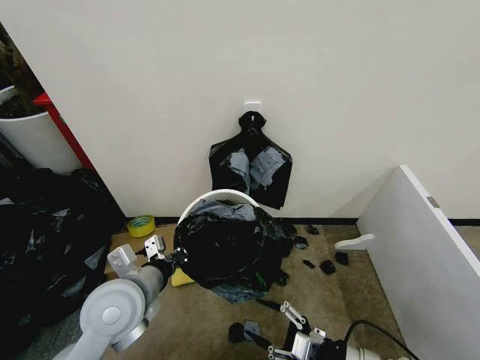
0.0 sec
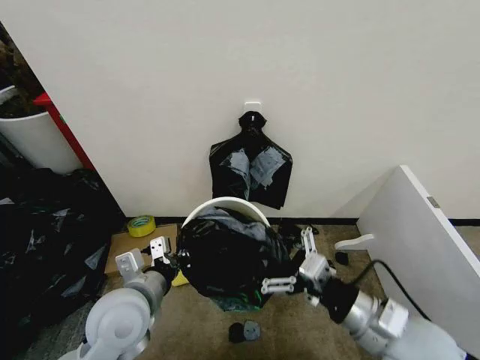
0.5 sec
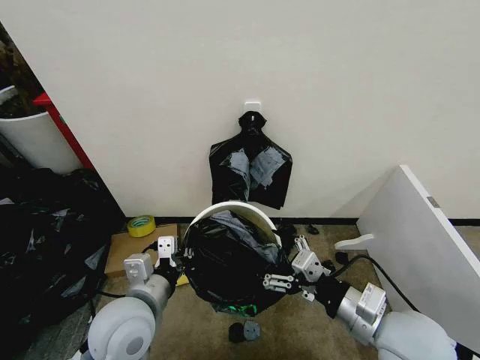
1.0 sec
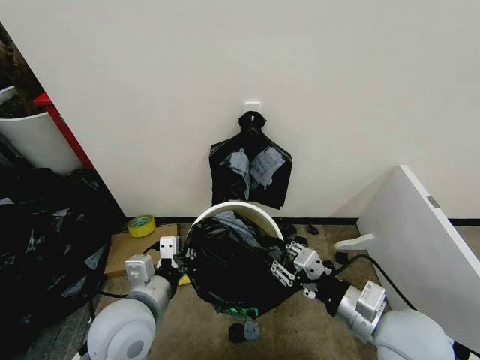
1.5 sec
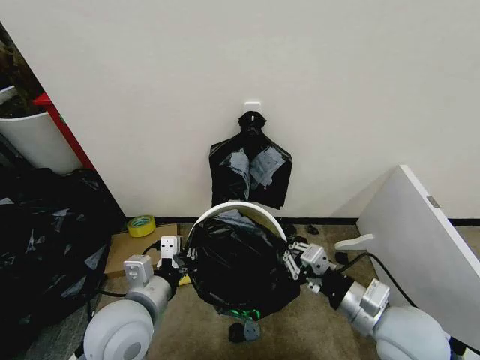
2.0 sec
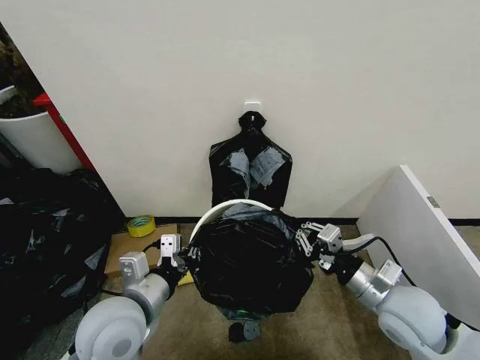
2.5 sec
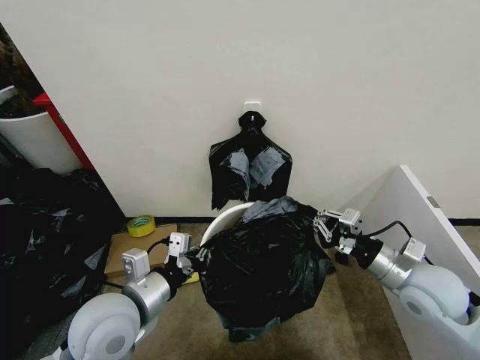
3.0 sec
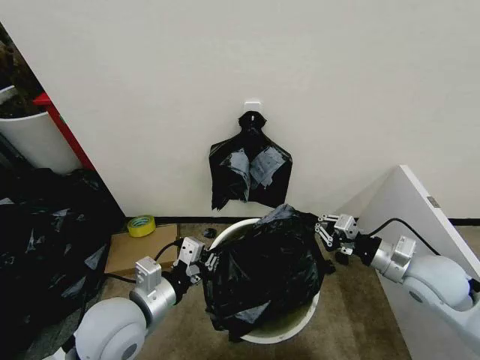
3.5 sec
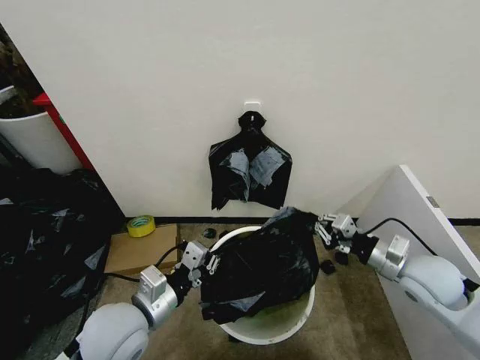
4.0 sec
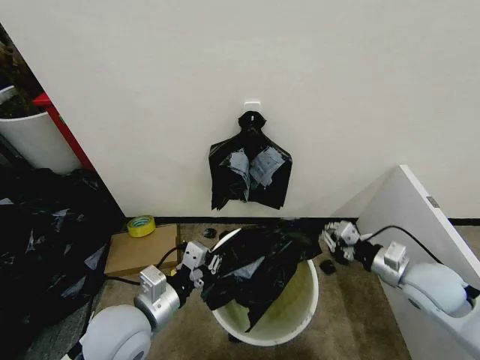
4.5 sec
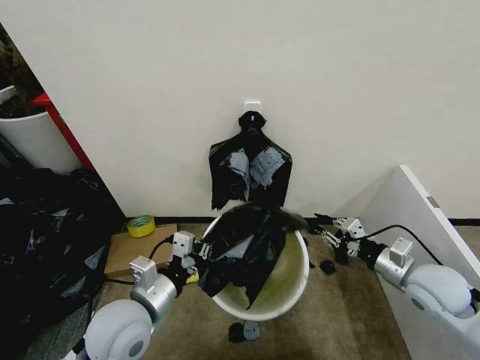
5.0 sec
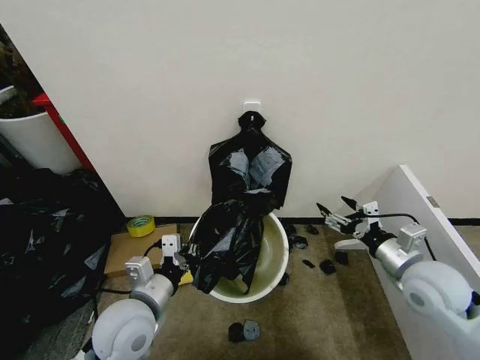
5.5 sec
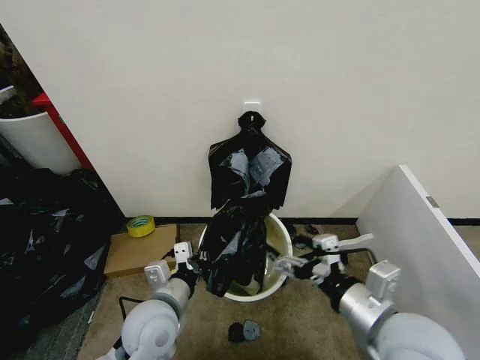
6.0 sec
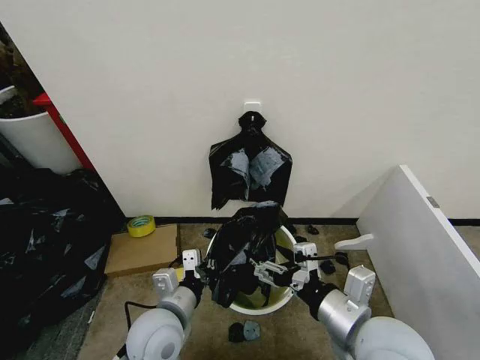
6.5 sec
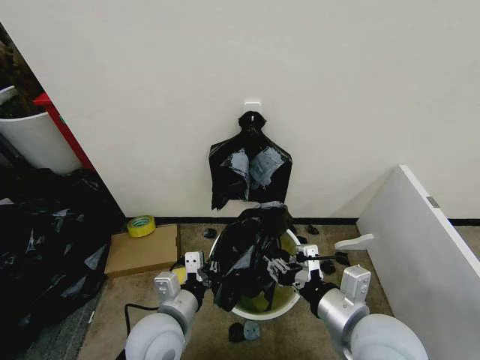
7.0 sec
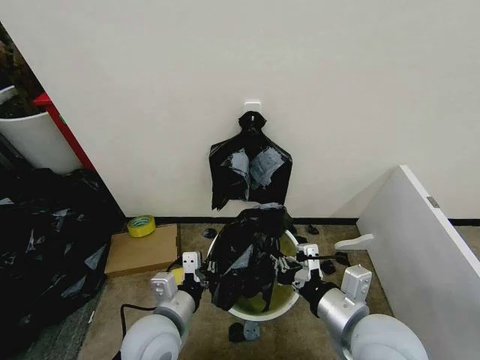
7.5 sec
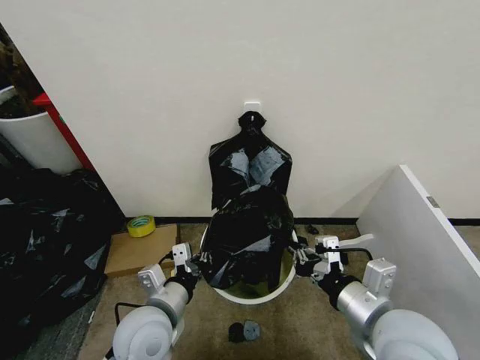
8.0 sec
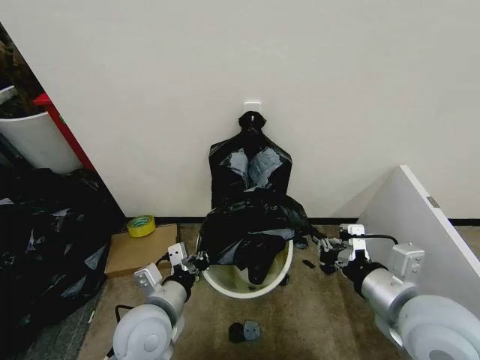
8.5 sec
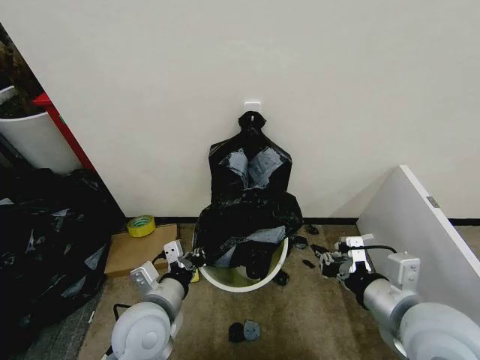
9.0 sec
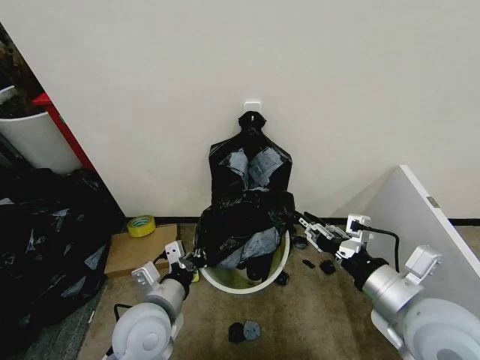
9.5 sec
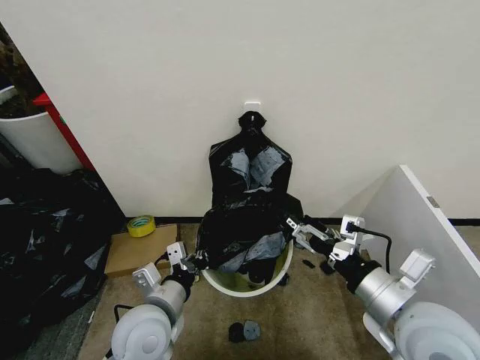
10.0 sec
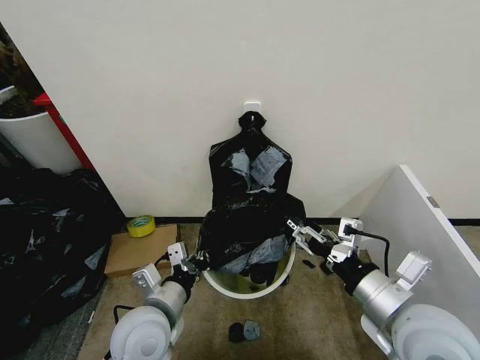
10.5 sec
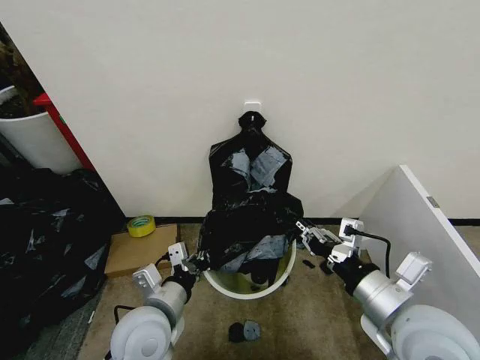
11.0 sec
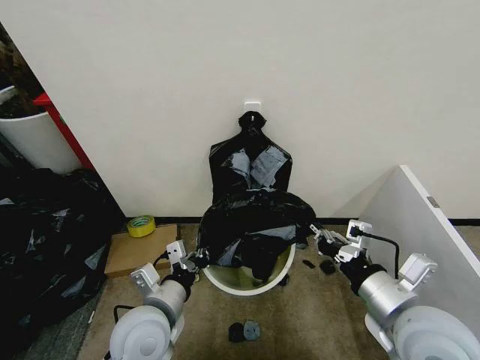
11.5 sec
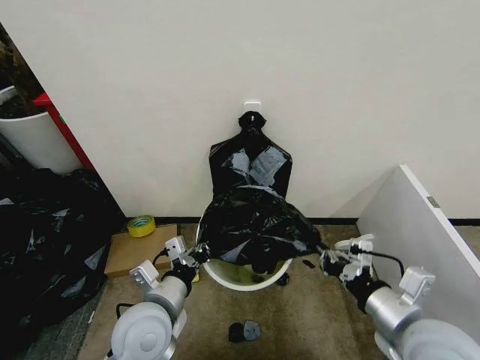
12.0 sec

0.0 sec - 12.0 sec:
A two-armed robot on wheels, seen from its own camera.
Task of the whole recording: Place the garbage bag over the trash bin.
0.0 sec - 2.0 sec: The right gripper goes approximately 10 cm upward and forward, and closes up.
2.0 sec - 4.0 sec: The right gripper goes some 15 cm to the right and forward.
4.0 sec - 6.0 sec: The left gripper ends up roughly 5 cm from where it was. The right gripper shifts some 20 cm to the left, backward and upward, and opens.
6.0 sec - 8.0 sec: The right gripper closes its fingers.
8.0 sec - 10.0 sec: The right gripper opens its fingers.
10.0 sec - 12.0 sec: The right gripper closes.

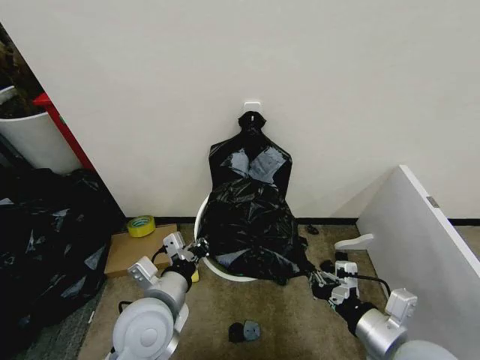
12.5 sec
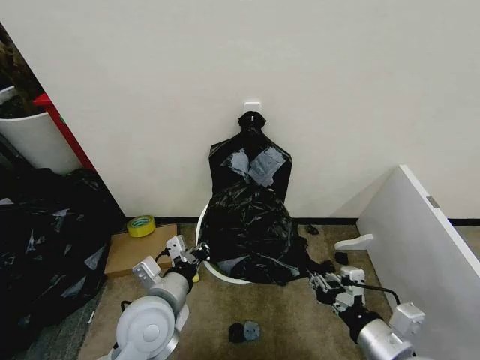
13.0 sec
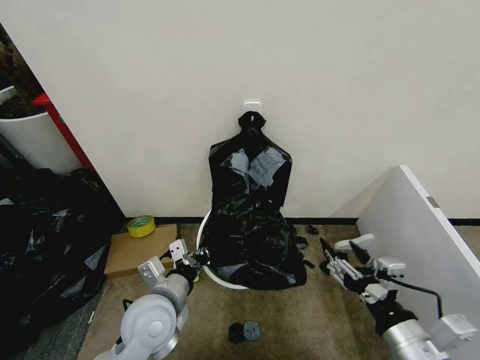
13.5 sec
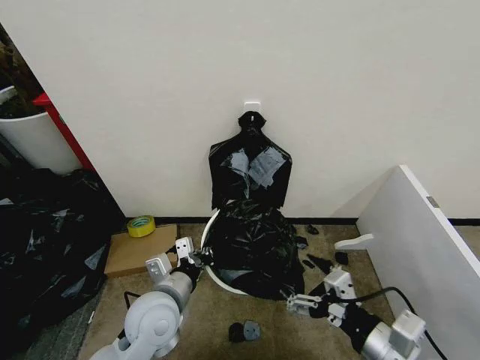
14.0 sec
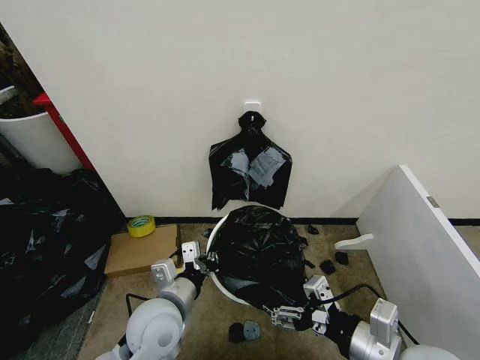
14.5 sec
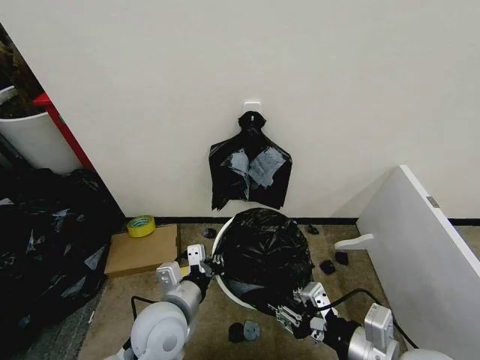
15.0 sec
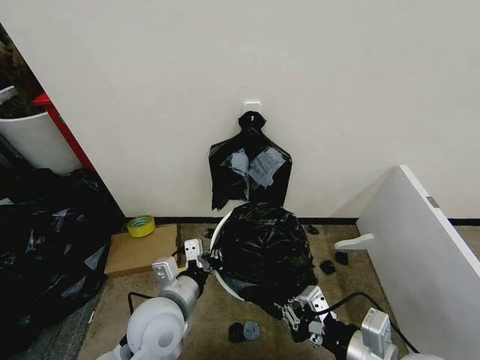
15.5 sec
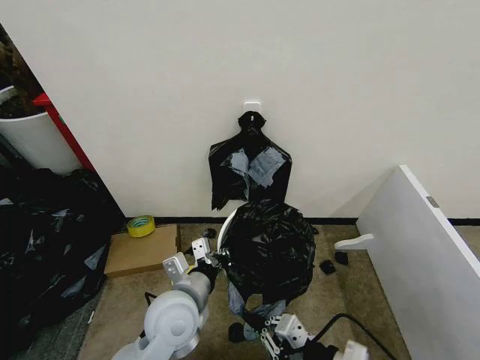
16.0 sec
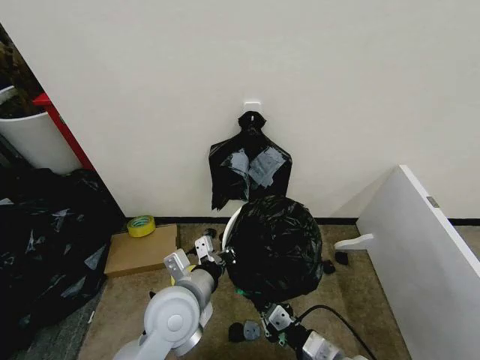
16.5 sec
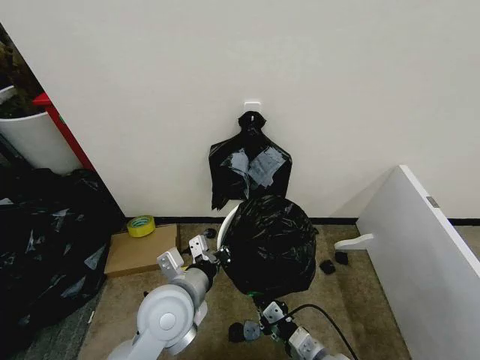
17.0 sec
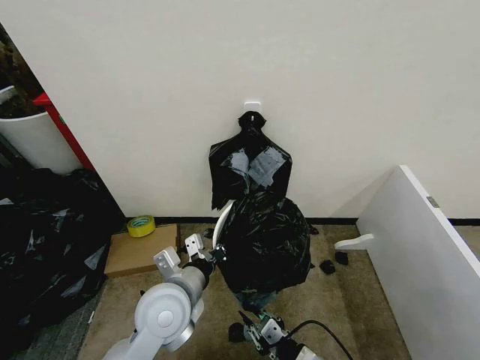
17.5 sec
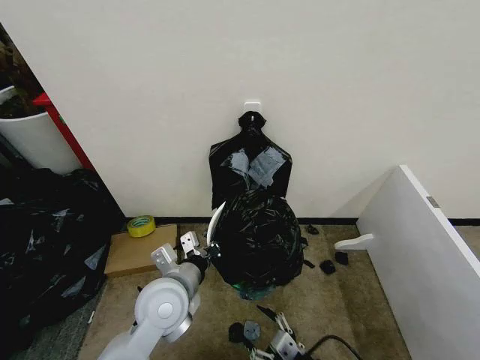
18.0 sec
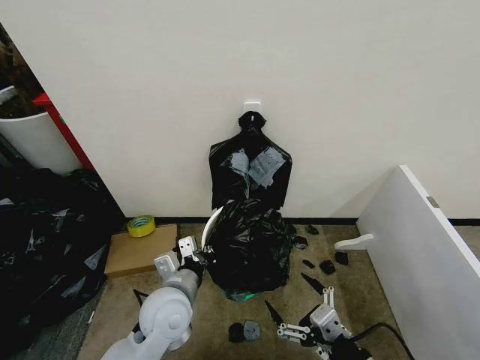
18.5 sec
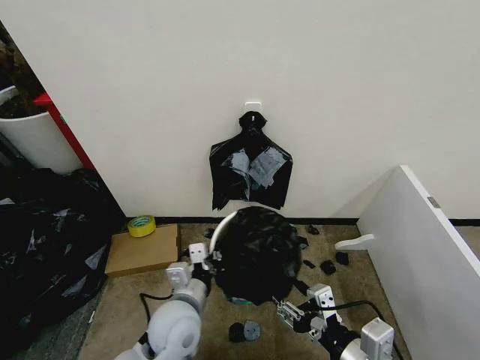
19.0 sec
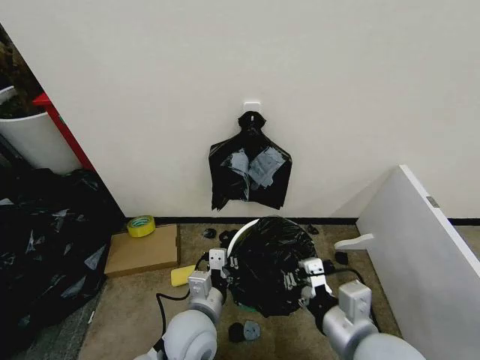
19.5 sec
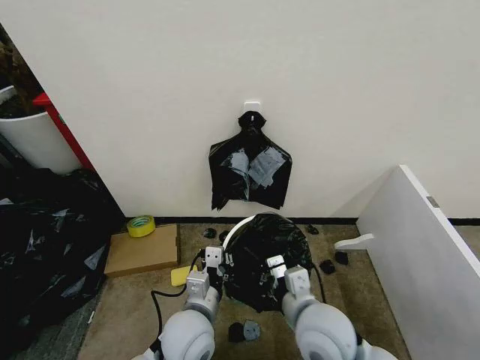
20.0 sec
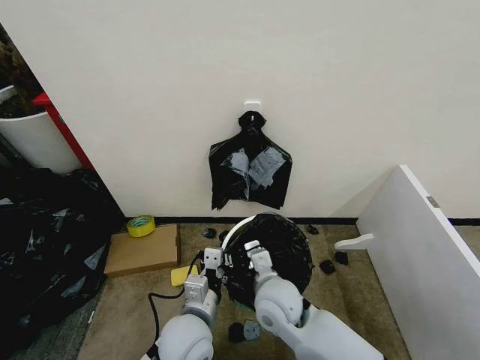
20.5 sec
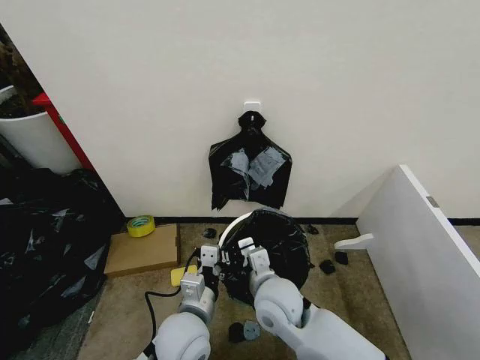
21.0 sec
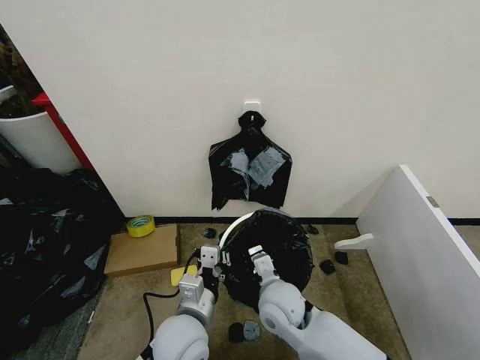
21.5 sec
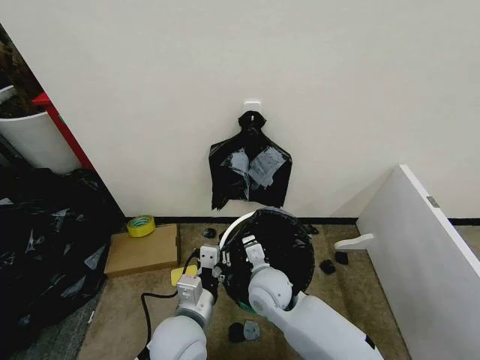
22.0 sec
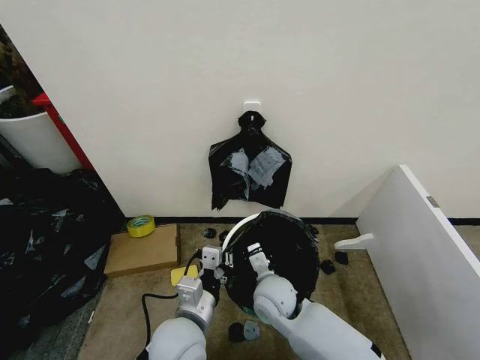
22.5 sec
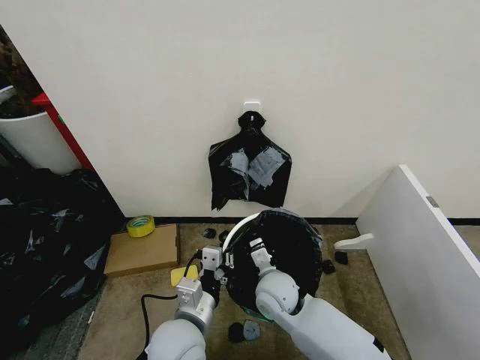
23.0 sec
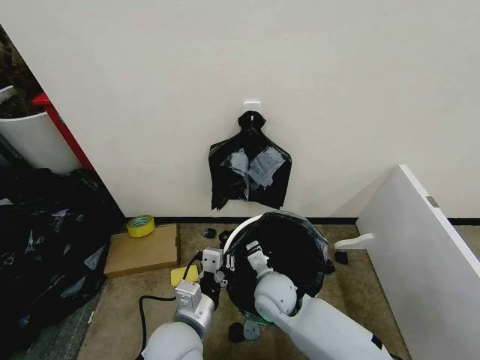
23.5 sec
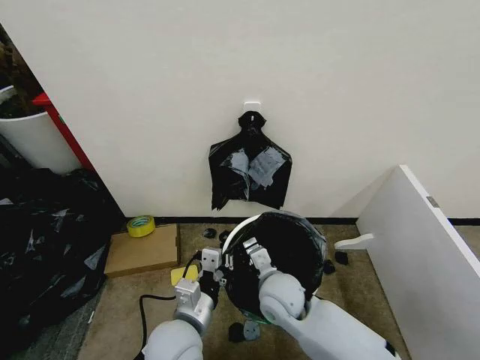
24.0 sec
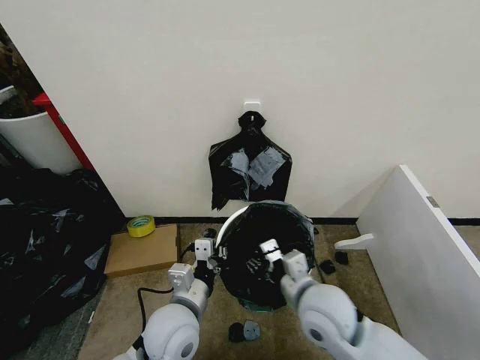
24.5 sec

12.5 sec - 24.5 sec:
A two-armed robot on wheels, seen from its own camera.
Task of the whole recording: Place the garbage bag over the trash bin.
12.5 sec - 14.5 sec: The right gripper opens up.
14.5 sec - 16.5 sec: The right gripper goes some 15 cm downward, and closes up.
16.5 sec - 18.5 sec: The right gripper travels upward and backward by about 10 cm, and opens its fingers.
18.5 sec - 20.5 sec: The right gripper travels forward and to the left by about 25 cm, and closes, while the left gripper moves roughly 5 cm.
20.5 sec - 22.5 sec: The right gripper ends up approximately 5 cm from where it was.
22.5 sec - 24.5 sec: The right gripper goes some 15 cm upward, to the right and backward, and opens up.

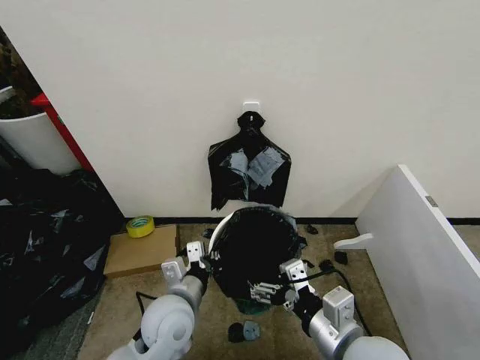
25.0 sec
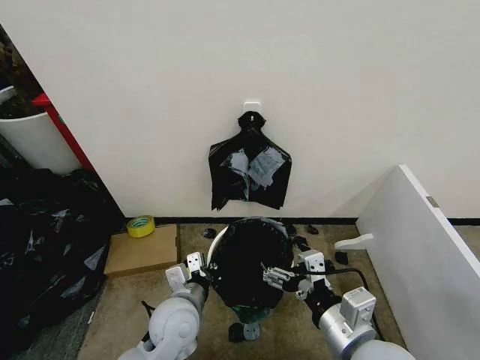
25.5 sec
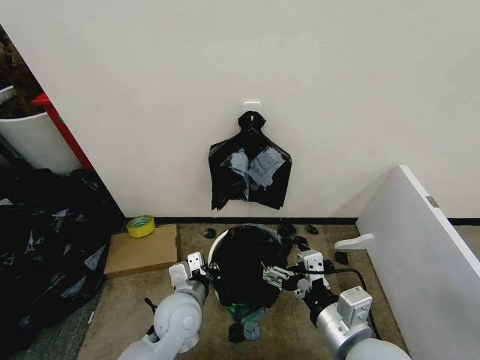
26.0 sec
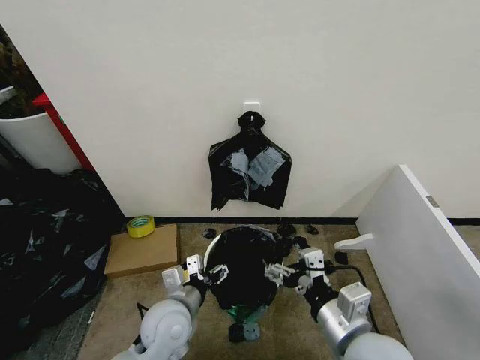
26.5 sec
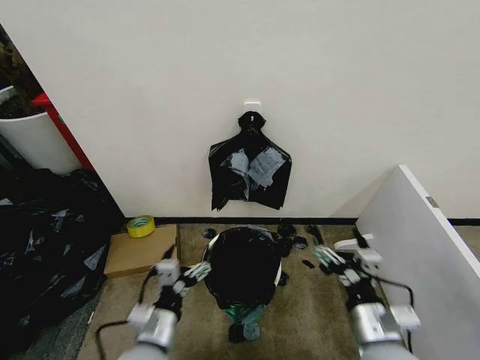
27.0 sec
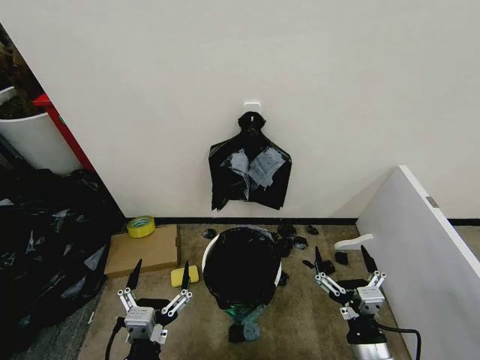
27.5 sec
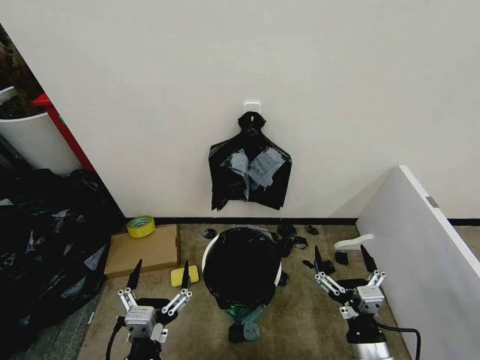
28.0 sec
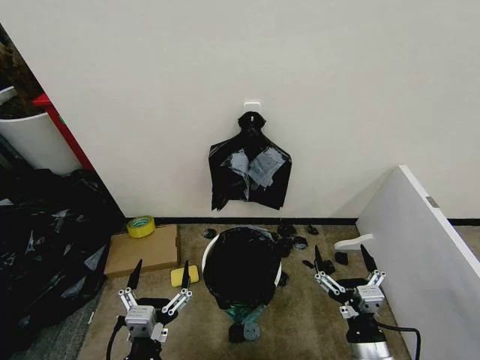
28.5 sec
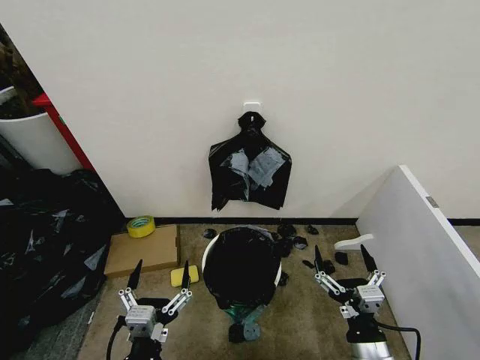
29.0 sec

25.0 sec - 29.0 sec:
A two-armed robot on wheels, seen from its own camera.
Task of the whole recording: Place the garbage bag over the trash bin.
25.0 sec - 27.0 sec: The left gripper heads backward, covering about 10 cm, and opens. Meanwhile the right gripper heads downward and to the right, covering approximately 10 cm.
27.0 sec - 29.0 sec: The right gripper ends up roughly 5 cm from where it was. Meanwhile the left gripper moves backward, approximately 10 cm.
